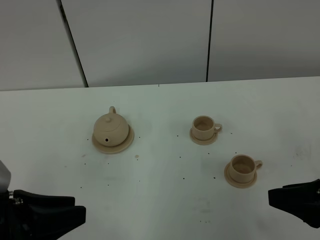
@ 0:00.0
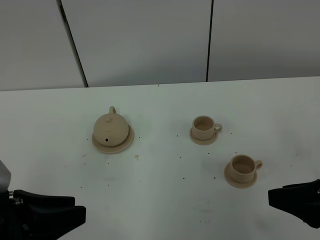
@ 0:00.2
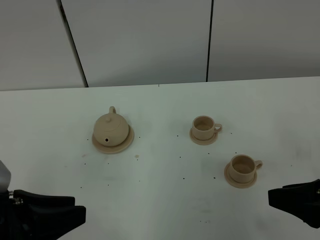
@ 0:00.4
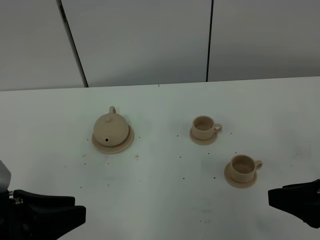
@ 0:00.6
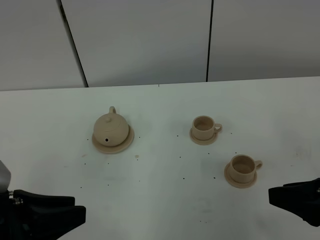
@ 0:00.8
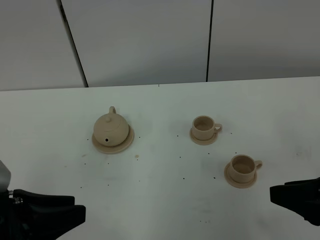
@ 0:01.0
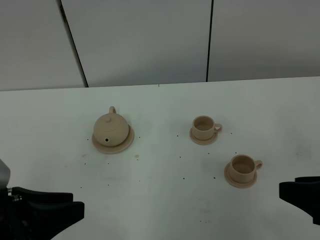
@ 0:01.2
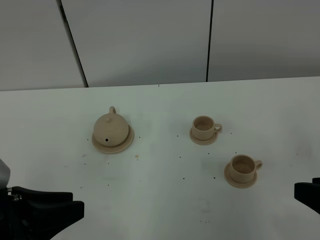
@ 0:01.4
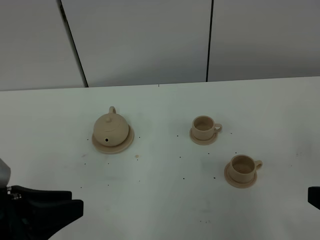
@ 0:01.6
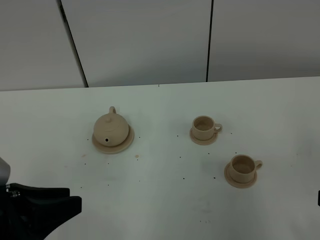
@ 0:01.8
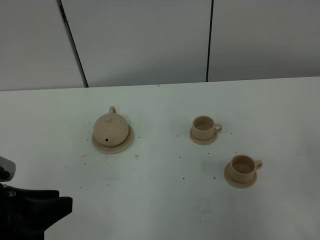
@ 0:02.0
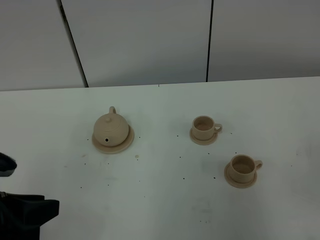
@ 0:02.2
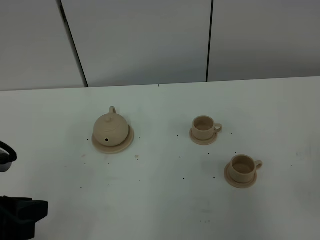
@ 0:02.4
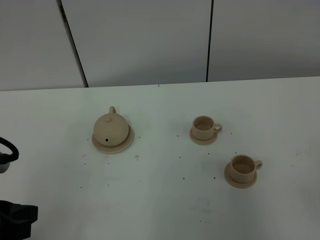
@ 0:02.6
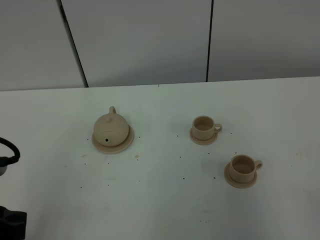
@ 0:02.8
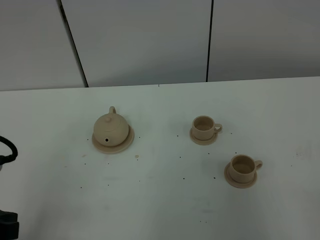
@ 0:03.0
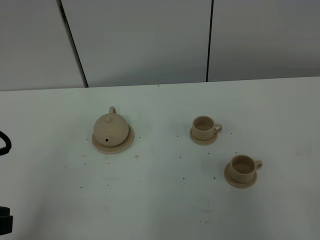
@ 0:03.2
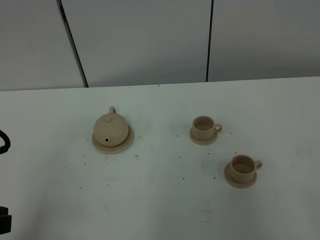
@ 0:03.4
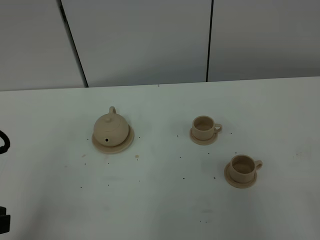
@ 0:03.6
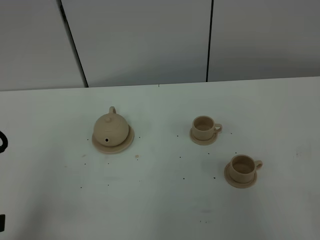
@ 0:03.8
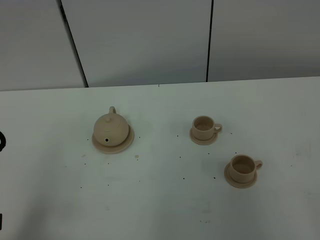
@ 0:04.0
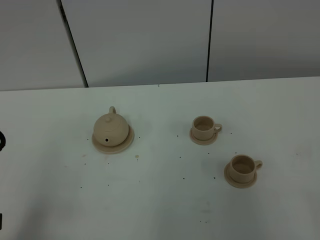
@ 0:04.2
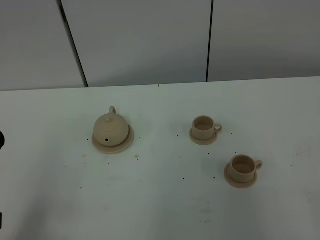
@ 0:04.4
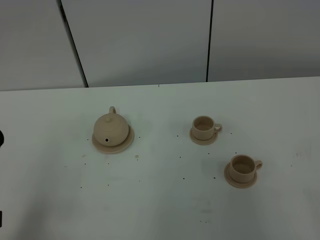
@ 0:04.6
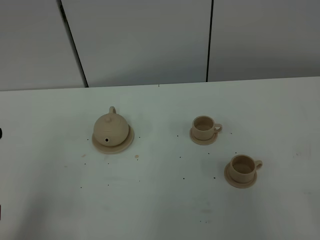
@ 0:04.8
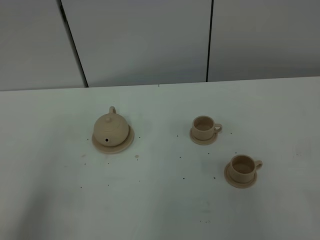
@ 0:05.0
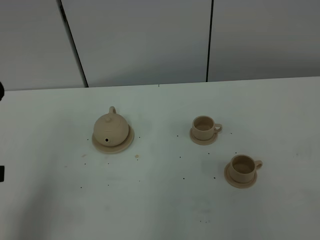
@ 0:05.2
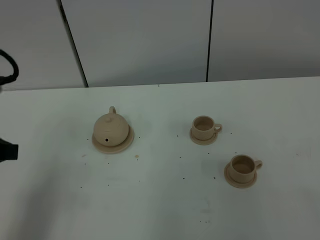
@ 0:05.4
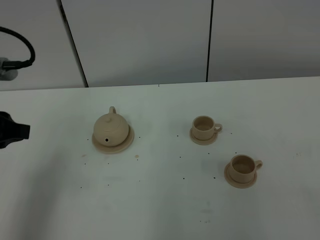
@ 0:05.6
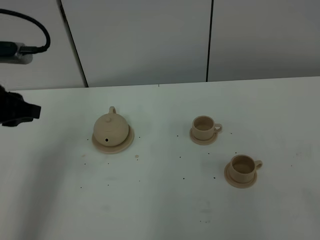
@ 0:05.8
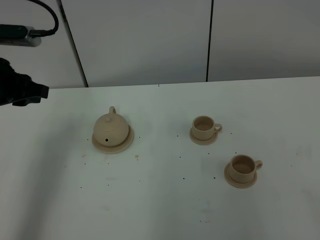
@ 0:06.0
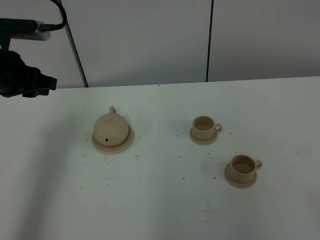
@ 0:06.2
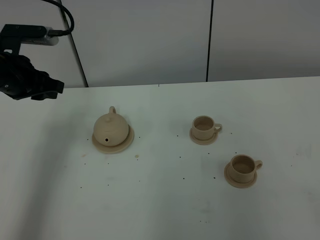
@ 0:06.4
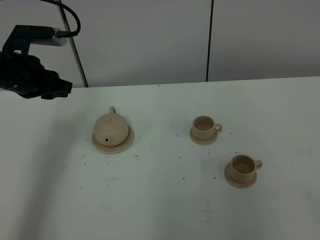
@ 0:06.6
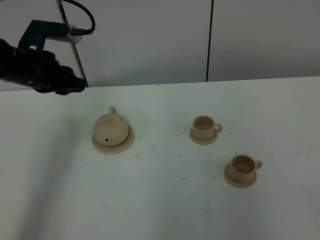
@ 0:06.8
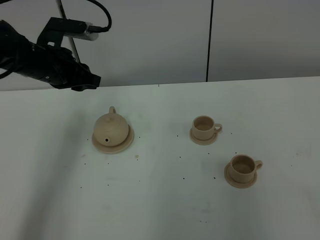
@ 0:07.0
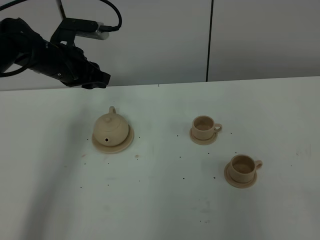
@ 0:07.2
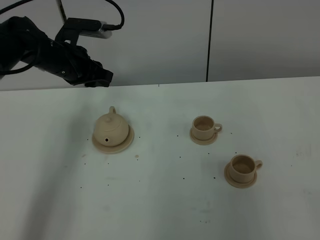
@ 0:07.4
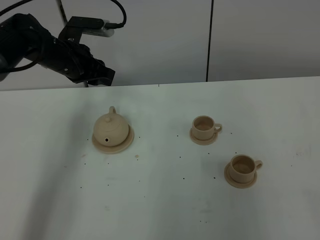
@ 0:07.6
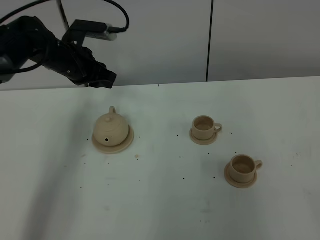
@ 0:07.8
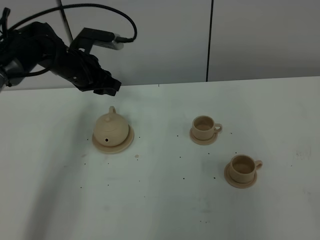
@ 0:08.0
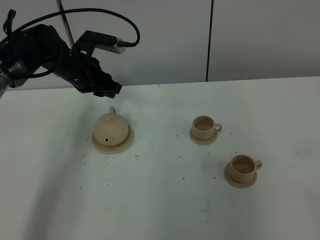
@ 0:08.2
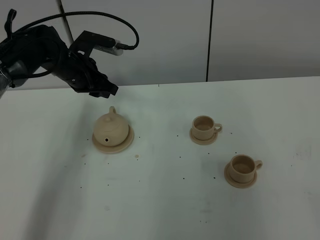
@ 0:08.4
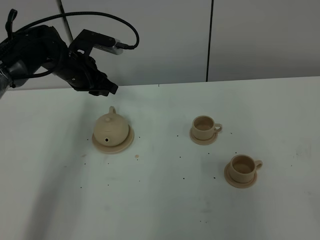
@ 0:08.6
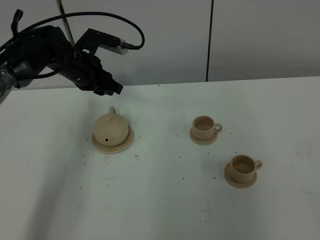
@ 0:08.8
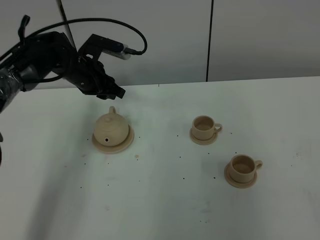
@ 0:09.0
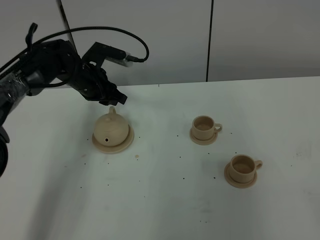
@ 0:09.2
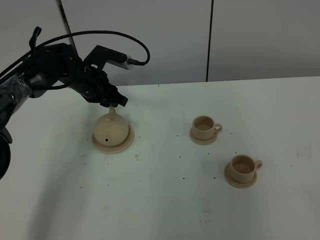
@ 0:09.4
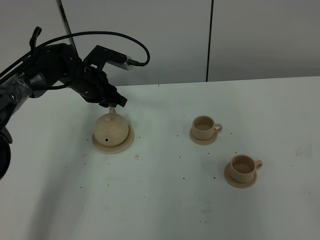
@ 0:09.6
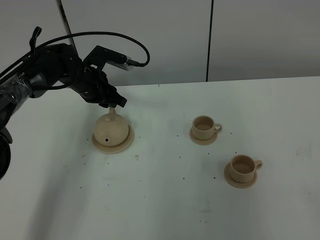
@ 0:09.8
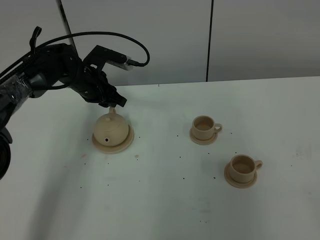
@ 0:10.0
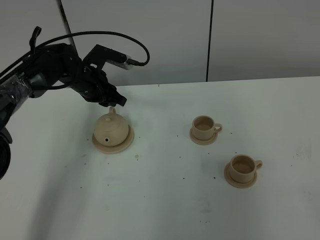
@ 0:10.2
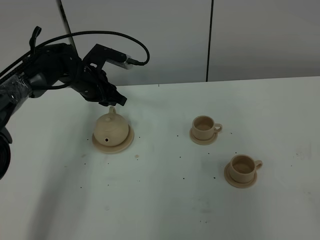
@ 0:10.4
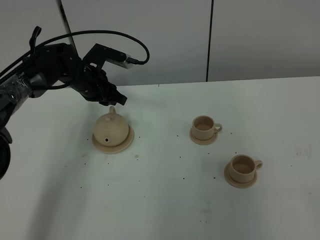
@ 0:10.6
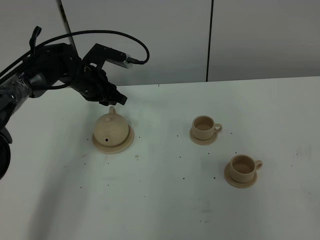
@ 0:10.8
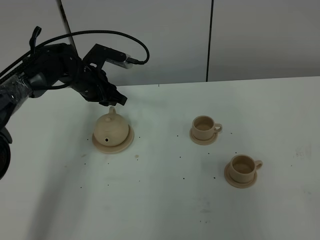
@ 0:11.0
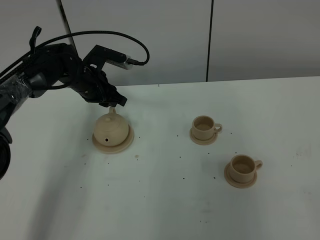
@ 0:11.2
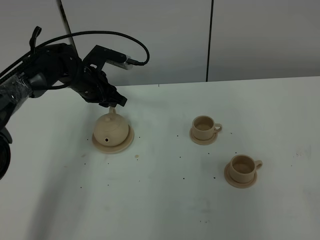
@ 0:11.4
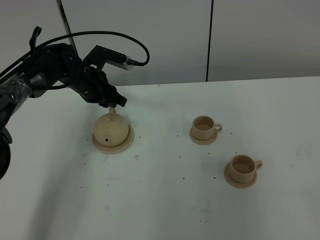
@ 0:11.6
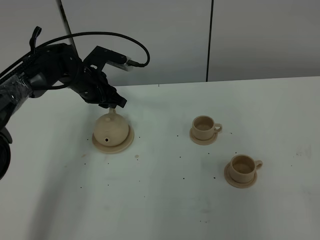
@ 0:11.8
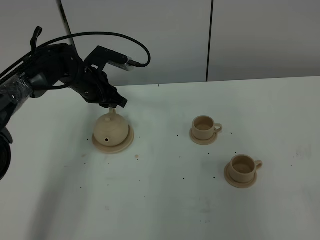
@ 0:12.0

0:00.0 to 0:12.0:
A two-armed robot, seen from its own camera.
Task of the whole recording: grasp the brown teapot and pour the tea into the two brown teacups one by one, put the brown teapot back in its original place.
0:00.0 to 0:01.6: The right gripper shifts by roughly 5 cm.
0:03.0 to 0:04.4: The grippers make only small movements.
0:04.4 to 0:06.0: The left gripper moves forward, about 25 cm.
0:06.0 to 0:07.6: The left gripper heads forward, to the right and downward, covering roughly 15 cm.
0:07.6 to 0:09.0: The left gripper shifts by about 5 cm.
0:09.0 to 0:10.4: The grippers make only small movements.
0:10.4 to 0:12.0: Neither gripper changes place.

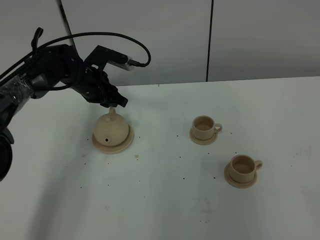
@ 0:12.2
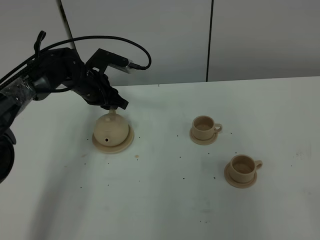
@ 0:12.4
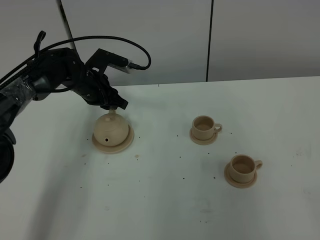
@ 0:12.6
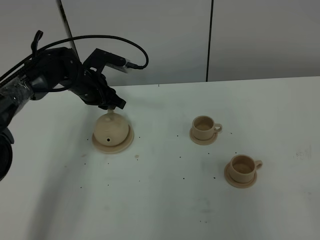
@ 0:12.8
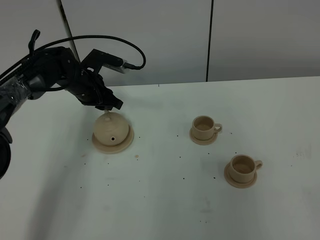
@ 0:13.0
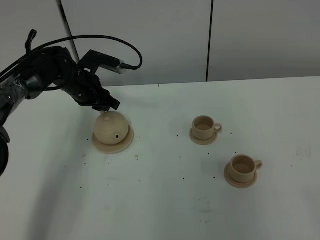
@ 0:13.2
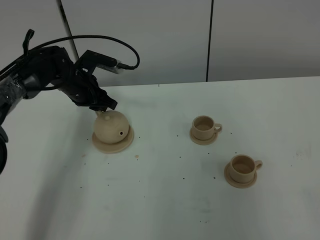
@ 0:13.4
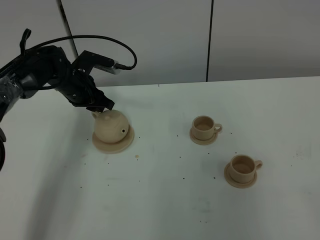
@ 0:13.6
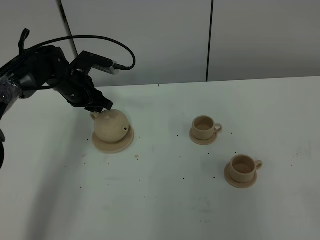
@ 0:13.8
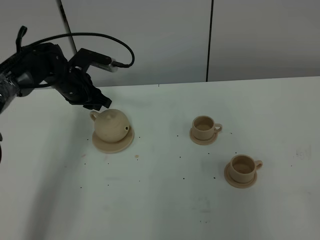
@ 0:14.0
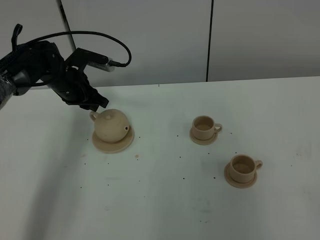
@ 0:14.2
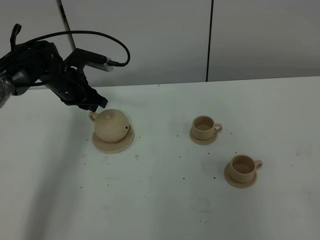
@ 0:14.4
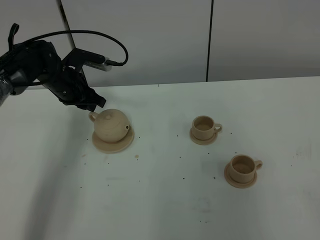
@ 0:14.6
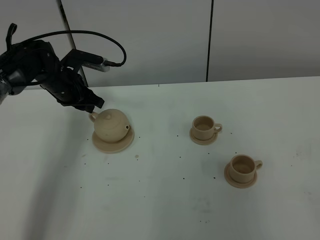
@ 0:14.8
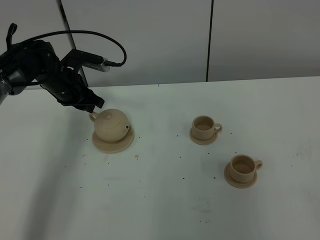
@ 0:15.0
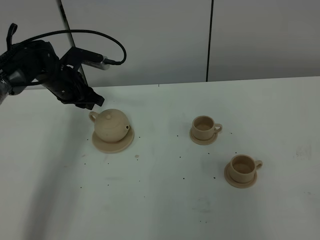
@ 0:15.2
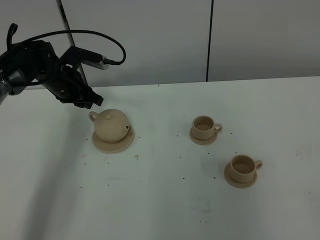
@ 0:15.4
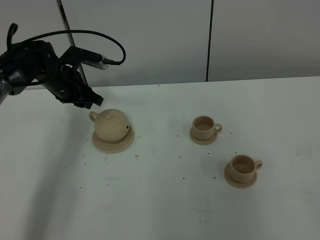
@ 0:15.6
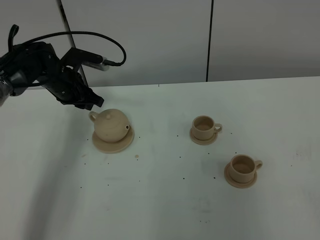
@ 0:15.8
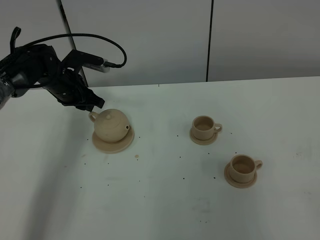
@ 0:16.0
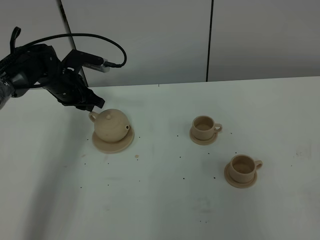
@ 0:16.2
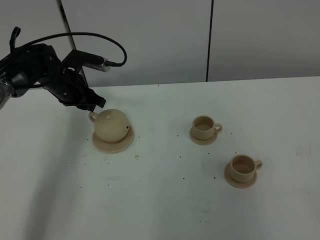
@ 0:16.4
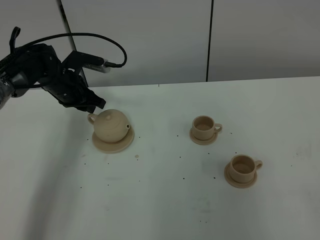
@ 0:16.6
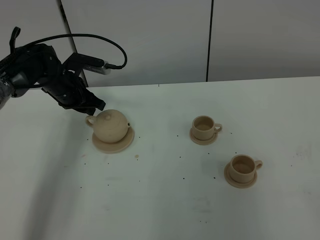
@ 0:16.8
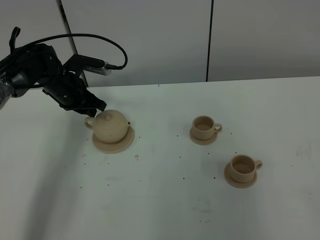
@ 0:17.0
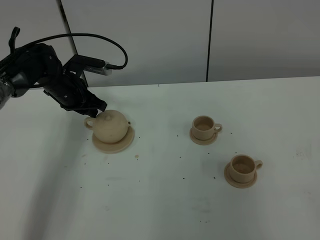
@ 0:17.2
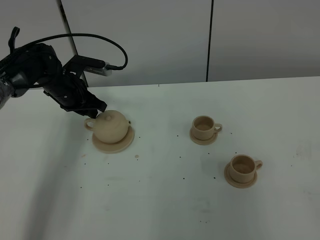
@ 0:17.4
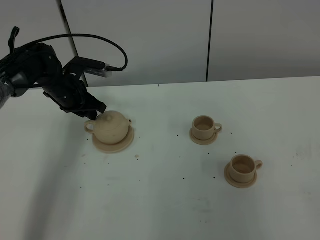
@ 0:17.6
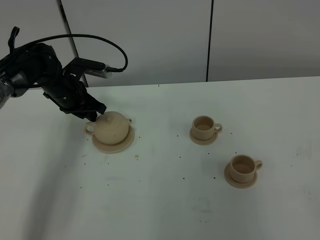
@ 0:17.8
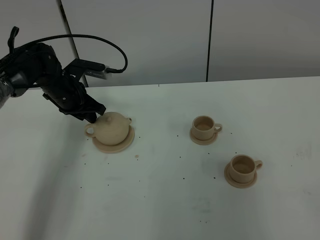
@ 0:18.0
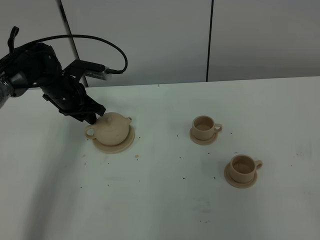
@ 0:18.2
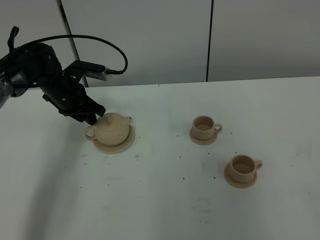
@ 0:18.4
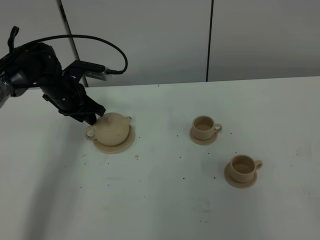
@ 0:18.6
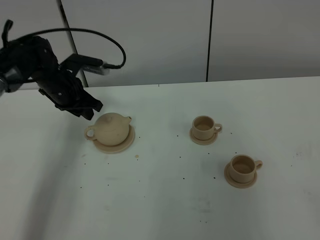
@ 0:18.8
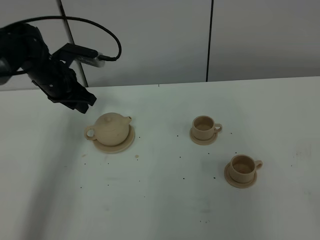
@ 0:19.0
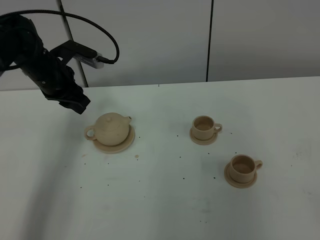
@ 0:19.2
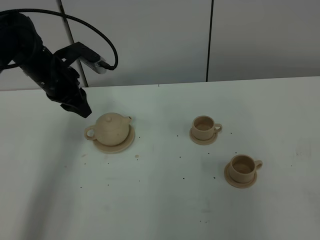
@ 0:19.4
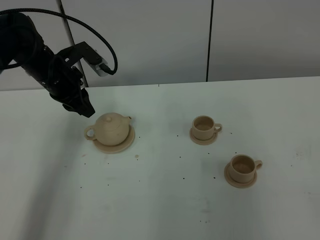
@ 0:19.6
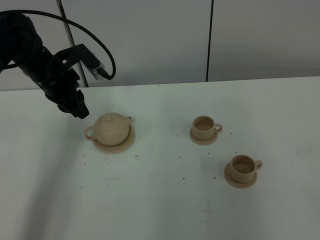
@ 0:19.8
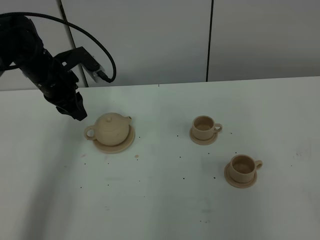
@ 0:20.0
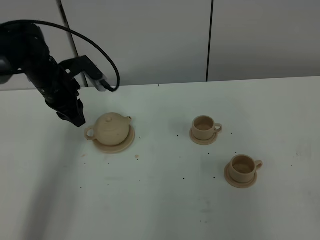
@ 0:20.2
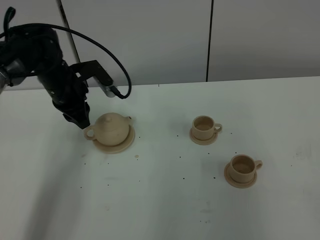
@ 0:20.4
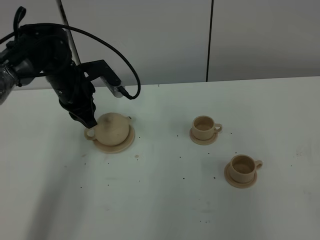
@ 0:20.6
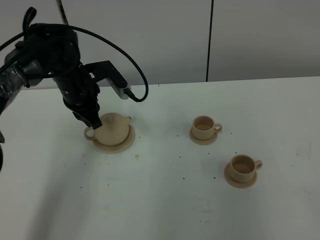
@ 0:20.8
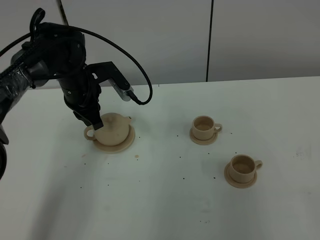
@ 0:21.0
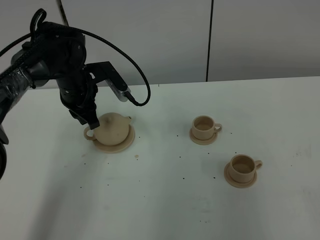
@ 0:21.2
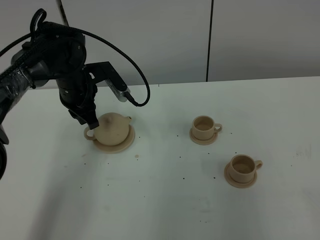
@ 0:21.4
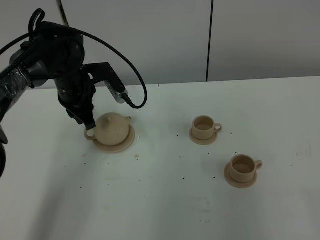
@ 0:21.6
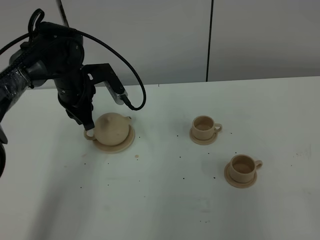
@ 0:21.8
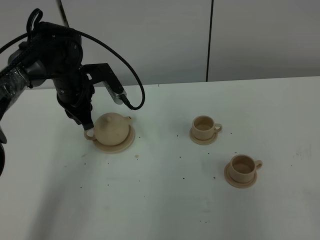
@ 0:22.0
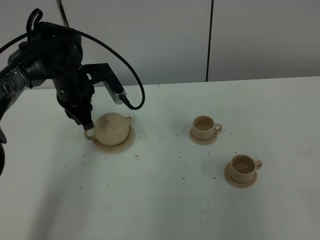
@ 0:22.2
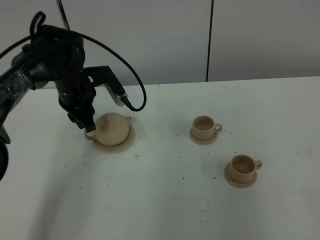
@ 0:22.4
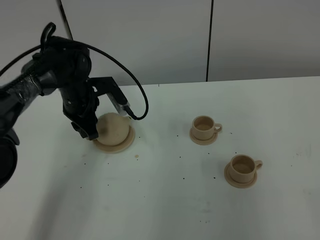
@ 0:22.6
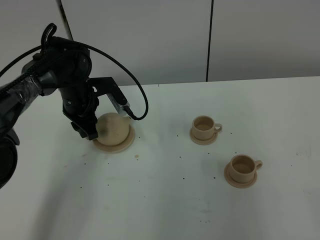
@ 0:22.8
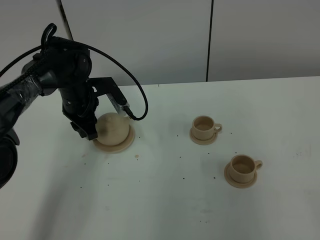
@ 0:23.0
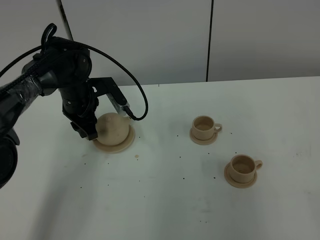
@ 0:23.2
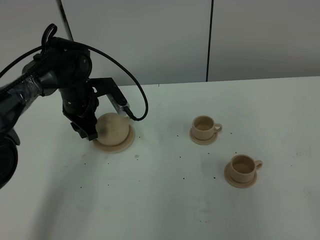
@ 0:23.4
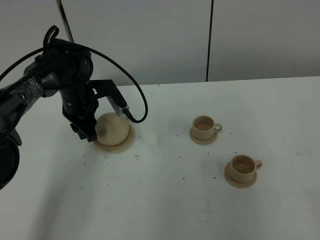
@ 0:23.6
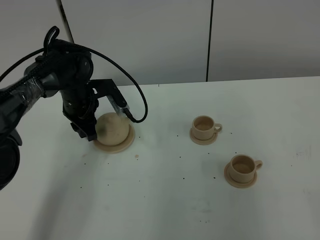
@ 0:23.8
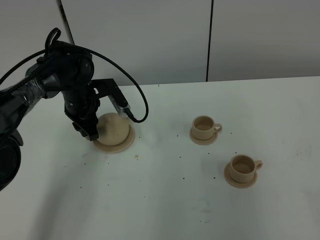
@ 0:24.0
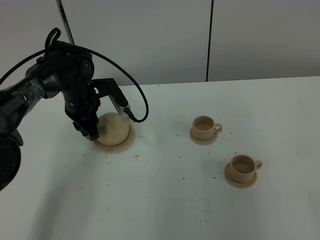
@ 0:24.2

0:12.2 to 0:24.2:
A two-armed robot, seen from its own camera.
Task of the whole recording: grasp the brown teapot and pour the tea into the two brown teacups one by one, put the brown teapot back in its original place.
0:12.2 to 0:15.2: The grippers make only small movements.
0:15.2 to 0:16.6: The two grippers keep their place.
0:16.6 to 0:18.2: There are only small adjustments of the grippers.
0:18.2 to 0:19.8: The left gripper is displaced upward by roughly 5 cm.
0:19.8 to 0:21.2: The left gripper shifts some 5 cm to the right, and closes its fingers.
0:21.2 to 0:22.6: The left gripper opens.
0:22.6 to 0:24.2: Both grippers stay put.
